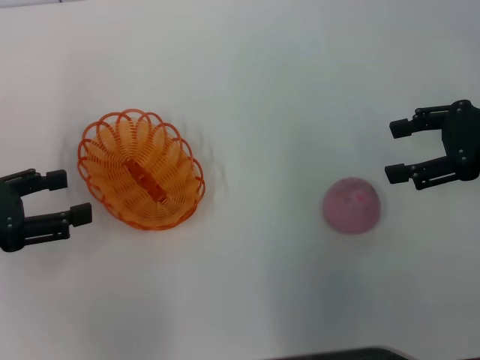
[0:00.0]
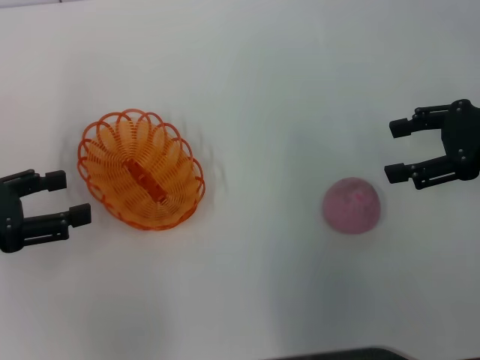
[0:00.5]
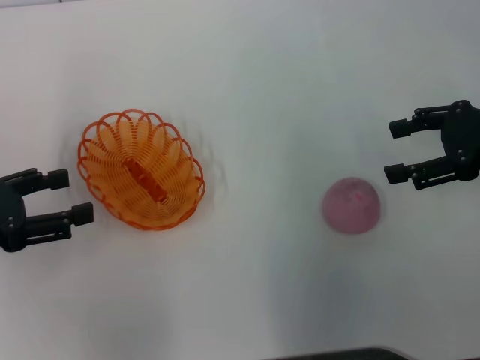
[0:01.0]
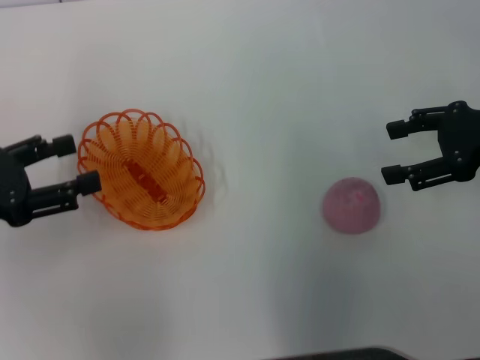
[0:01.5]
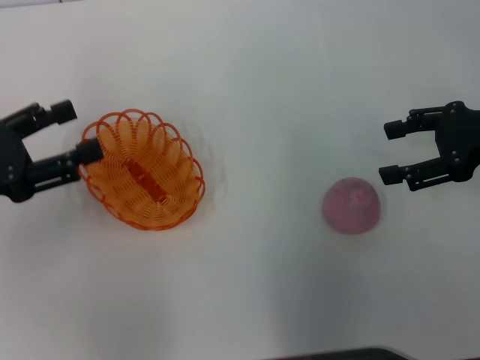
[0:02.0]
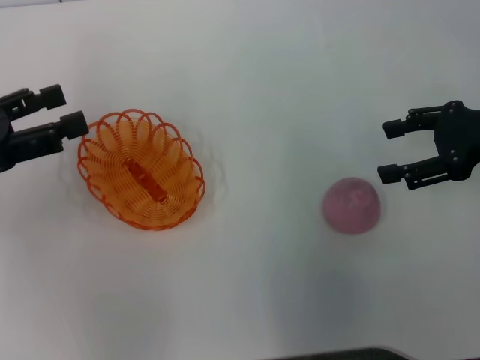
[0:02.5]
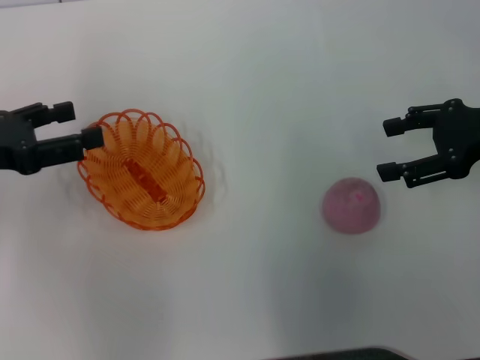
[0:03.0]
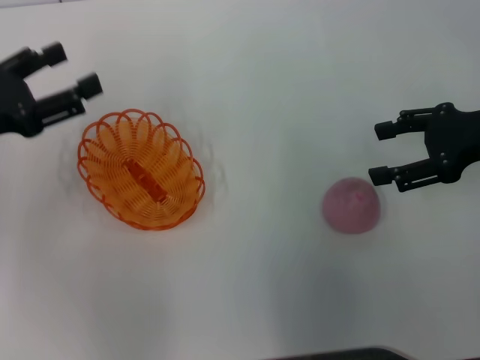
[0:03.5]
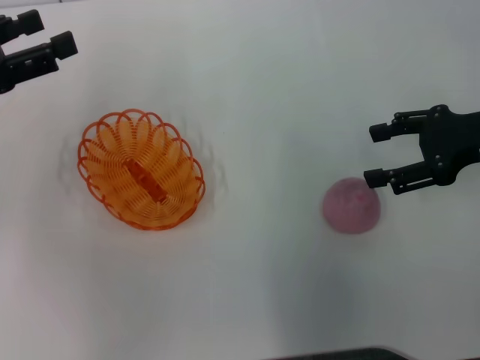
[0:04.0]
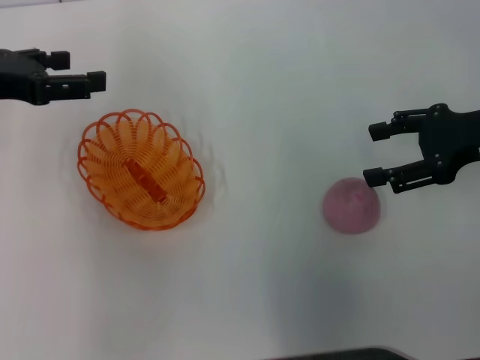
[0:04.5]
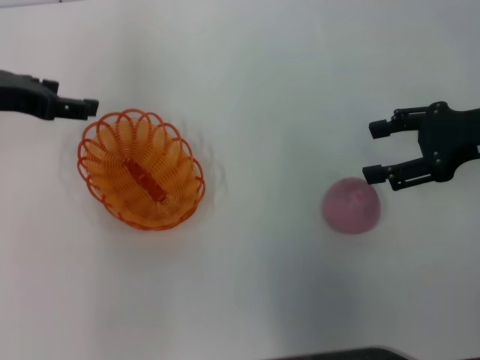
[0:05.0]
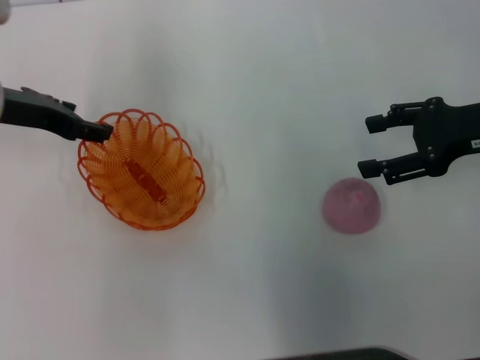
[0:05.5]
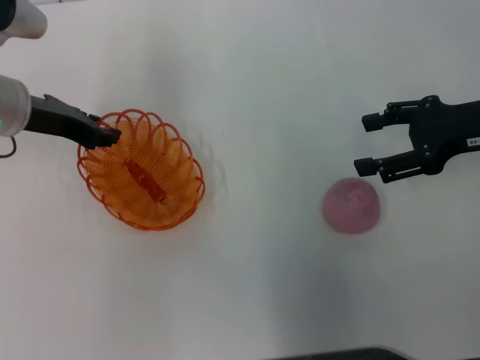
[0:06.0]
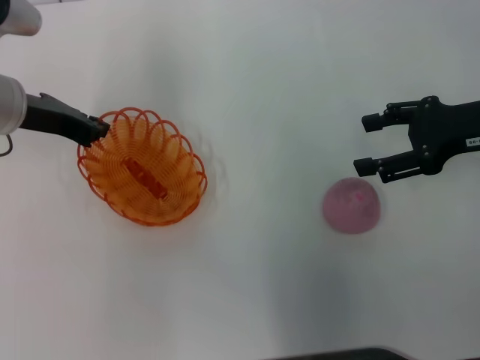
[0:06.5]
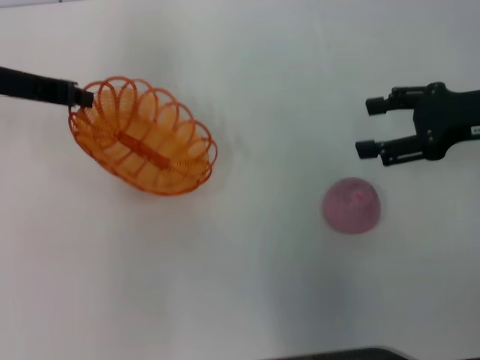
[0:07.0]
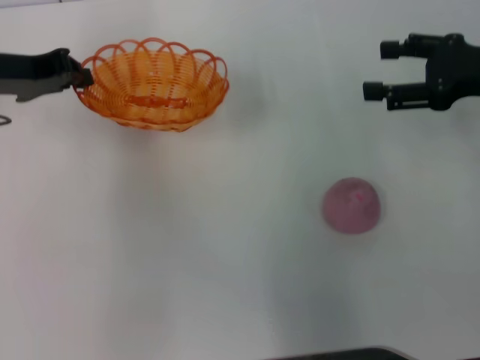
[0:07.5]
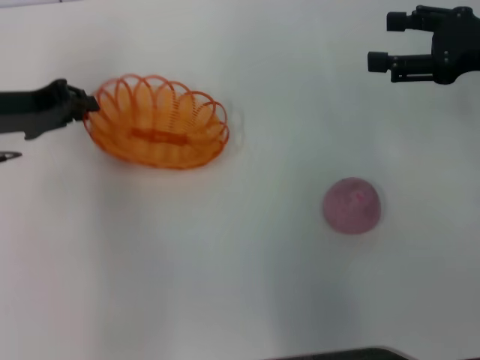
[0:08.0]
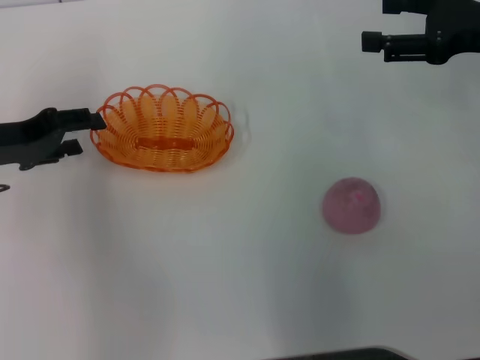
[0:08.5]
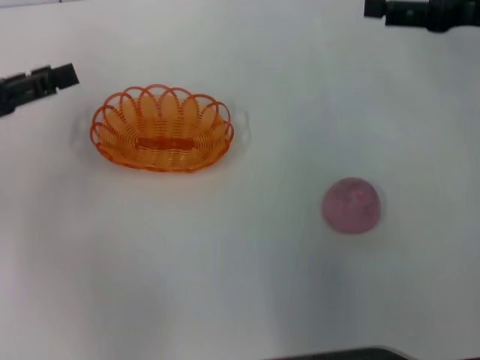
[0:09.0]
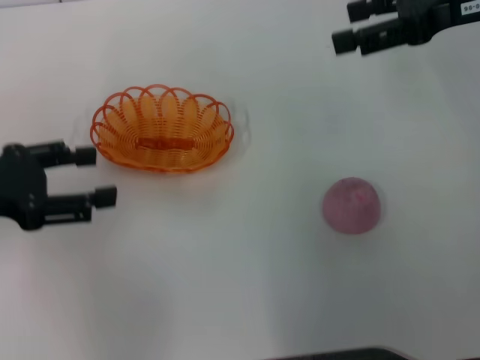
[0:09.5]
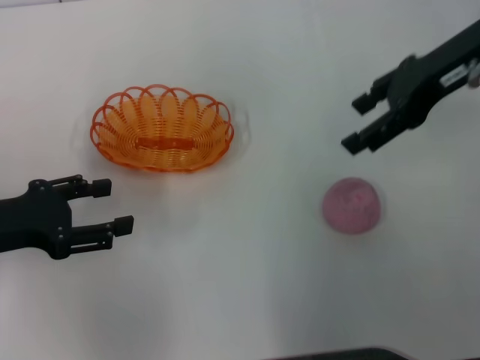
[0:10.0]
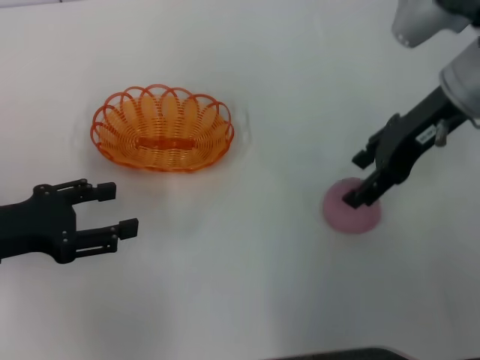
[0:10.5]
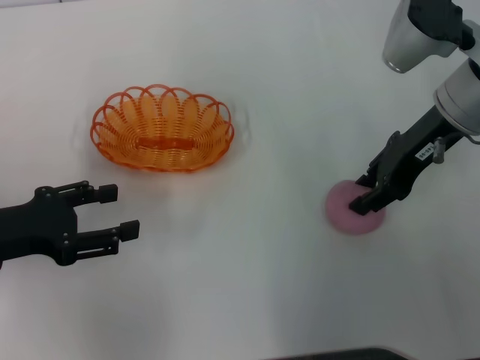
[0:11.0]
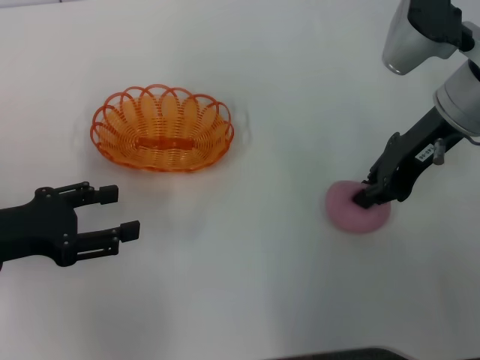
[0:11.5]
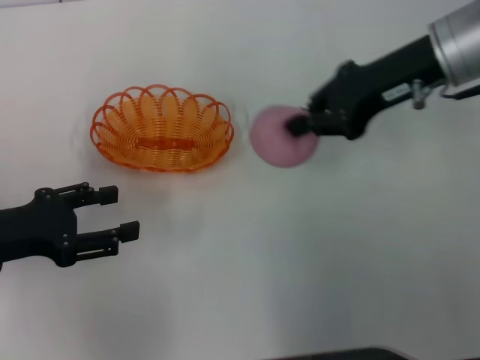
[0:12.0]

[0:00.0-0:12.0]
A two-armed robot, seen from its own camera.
Step, 0:00.0 to 0:07.0: Pick up the basket with the left gripper.
Step, 0:07.5 to 0:08.5: Place the basket in the center of view with the left gripper.
Step, 0:09.5 to 0:11.5: Pick up the peach with the right gripper.
0:00.0 to 0:02.0: There are only small adjustments of the grippers.
0:02.0 to 0:04.0: The left gripper shifts approximately 5 cm forward.
0:04.0 to 0:06.0: The left gripper travels to the right and forward by some 10 cm.
0:06.0 to 0:08.0: The left gripper closes up.
0:08.0 to 0:10.0: The right gripper is displaced to the left and upward by roughly 10 cm. Meanwhile the left gripper goes some 10 cm backward, and opens its fingers.
0:10.0 to 0:12.0: The right gripper closes up.

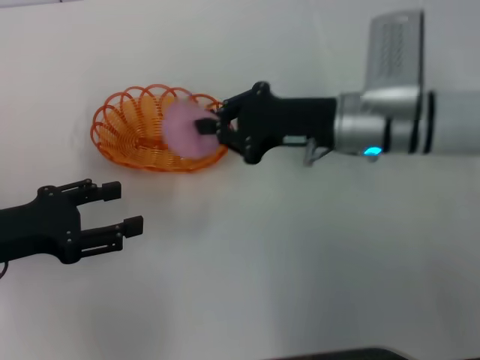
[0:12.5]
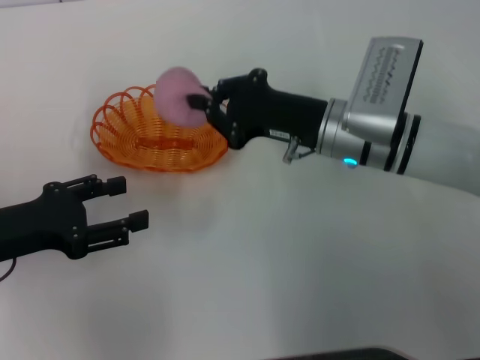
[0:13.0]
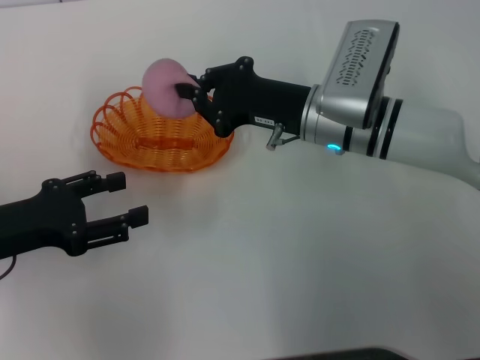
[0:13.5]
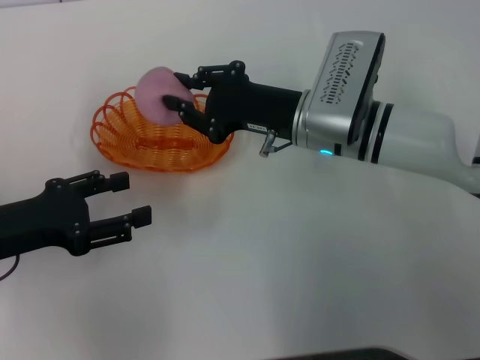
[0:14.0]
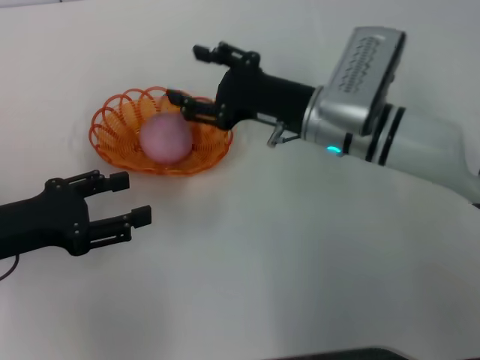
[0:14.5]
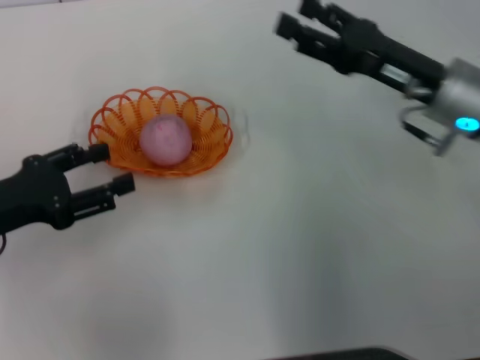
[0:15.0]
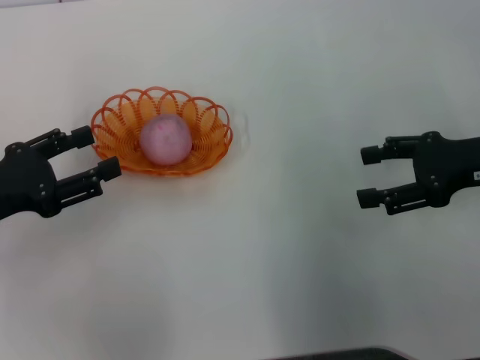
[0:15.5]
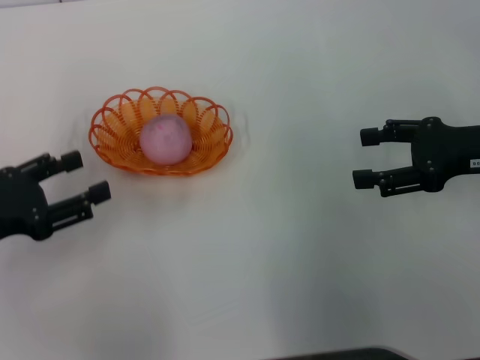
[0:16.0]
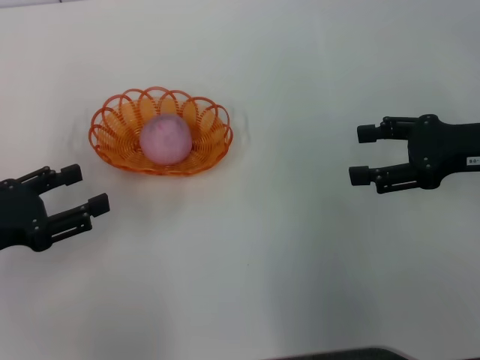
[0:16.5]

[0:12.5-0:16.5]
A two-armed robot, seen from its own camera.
Step, 0:12.5 to 0:14.5: Place the peach into the basket with the right gripper.
0:12.5 to 0:14.5: The right gripper opens up.
0:14.5 to 0:16.5: The right gripper goes approximately 20 cm to the right.
